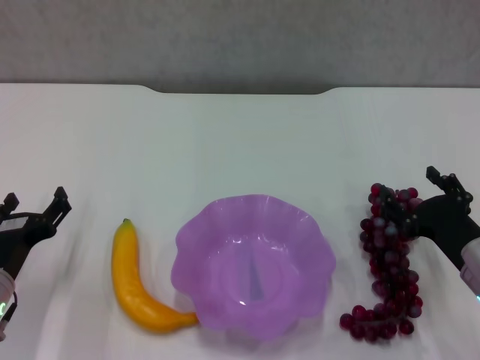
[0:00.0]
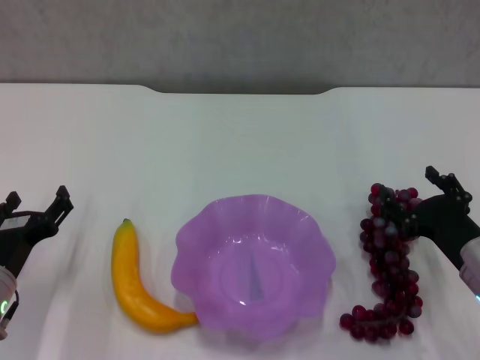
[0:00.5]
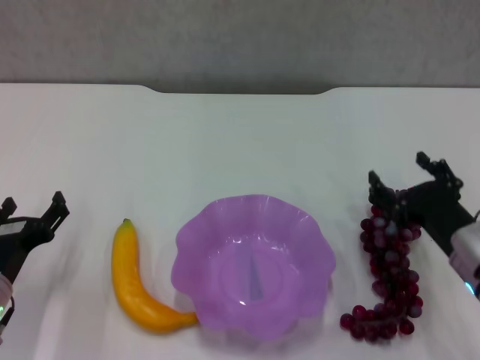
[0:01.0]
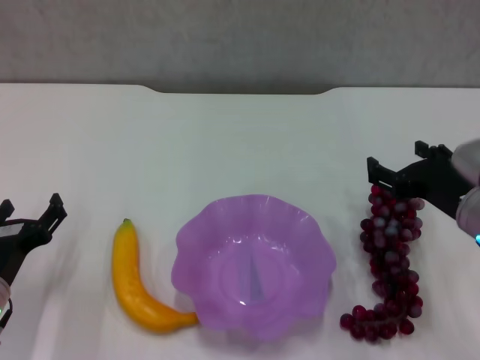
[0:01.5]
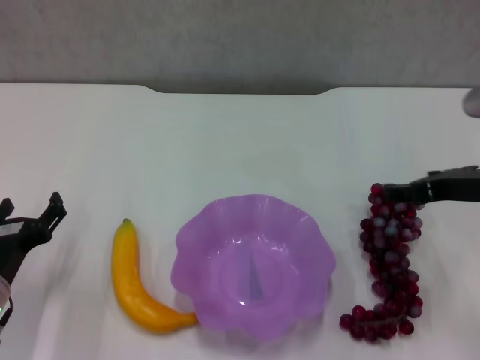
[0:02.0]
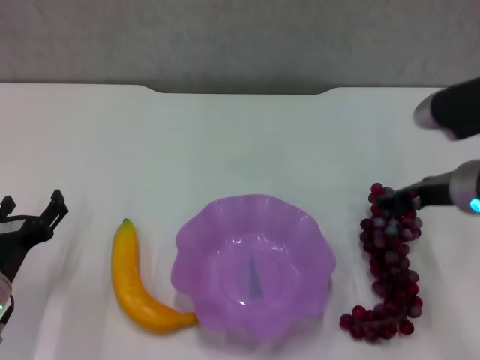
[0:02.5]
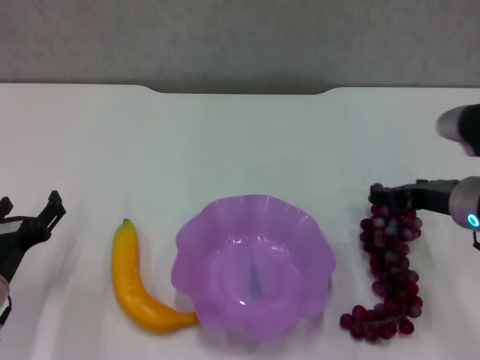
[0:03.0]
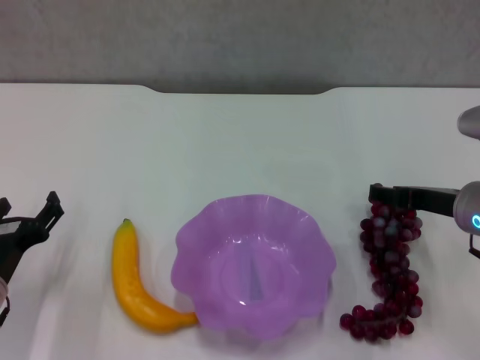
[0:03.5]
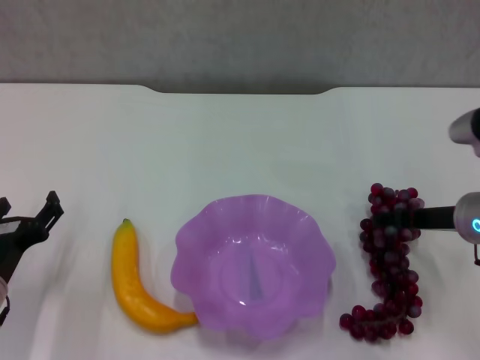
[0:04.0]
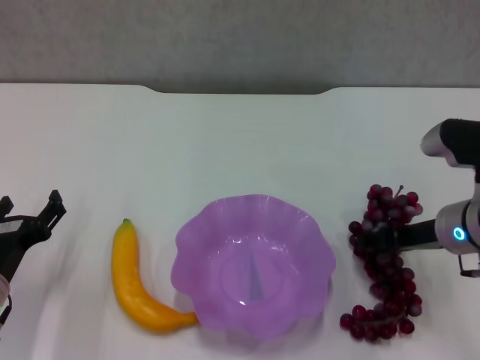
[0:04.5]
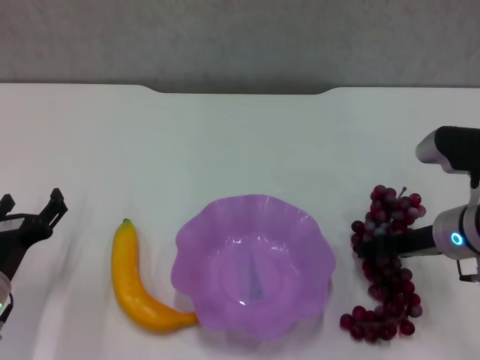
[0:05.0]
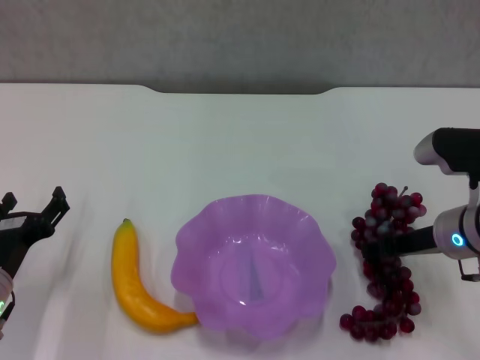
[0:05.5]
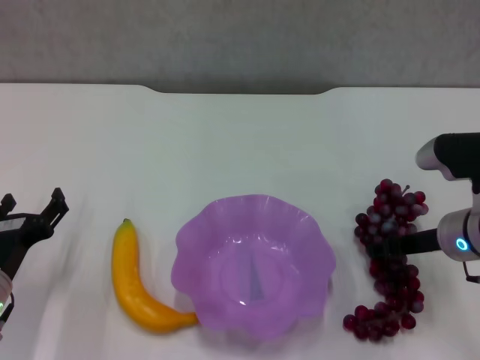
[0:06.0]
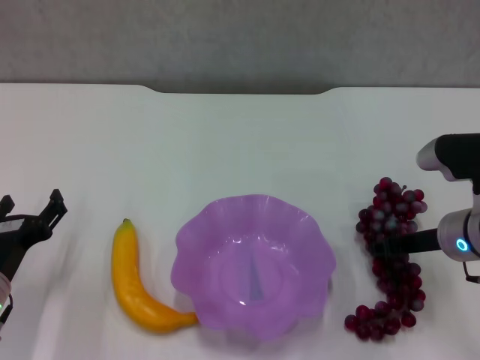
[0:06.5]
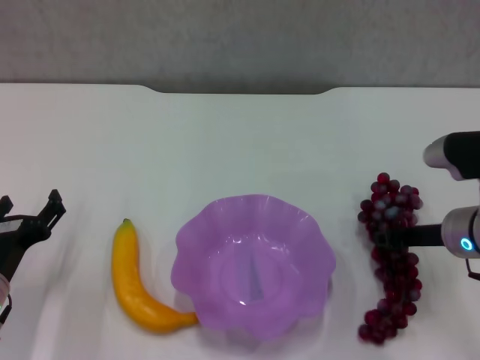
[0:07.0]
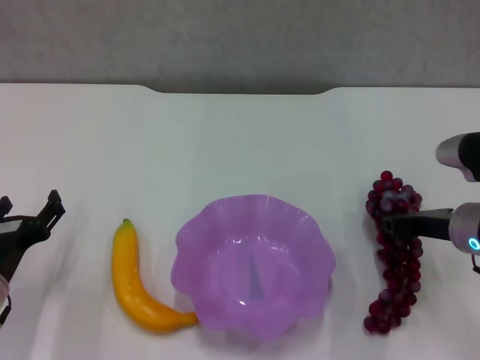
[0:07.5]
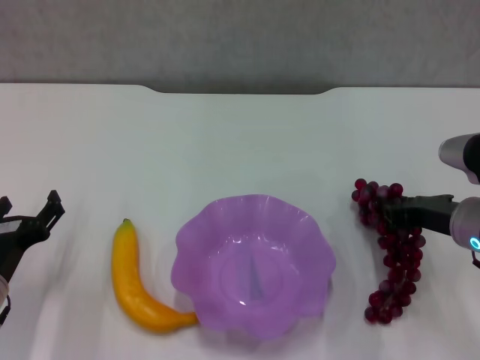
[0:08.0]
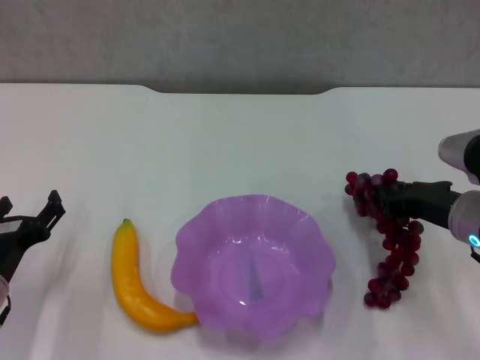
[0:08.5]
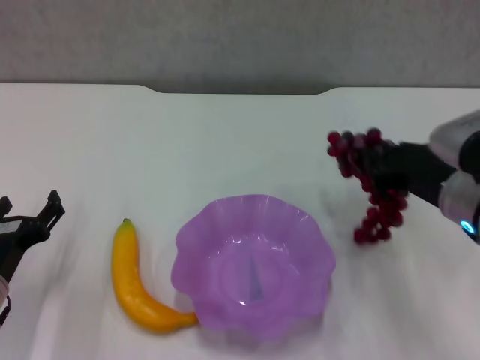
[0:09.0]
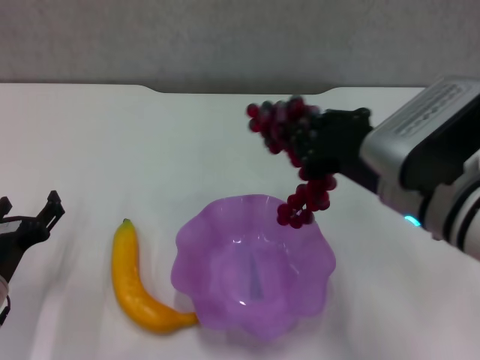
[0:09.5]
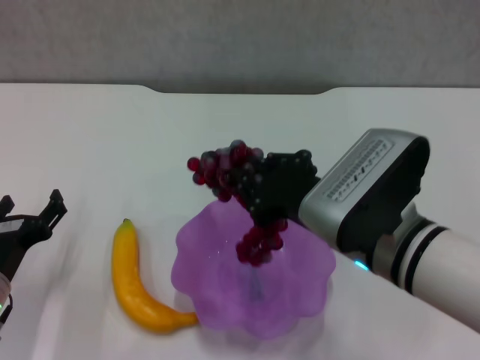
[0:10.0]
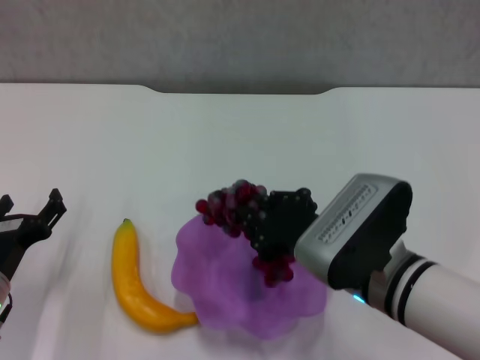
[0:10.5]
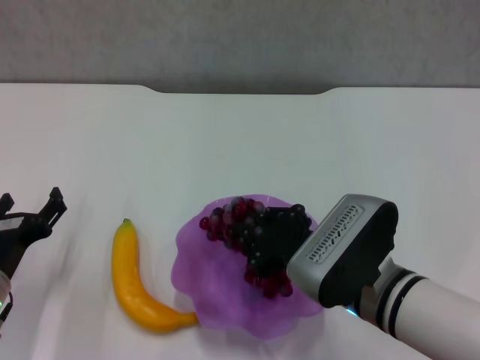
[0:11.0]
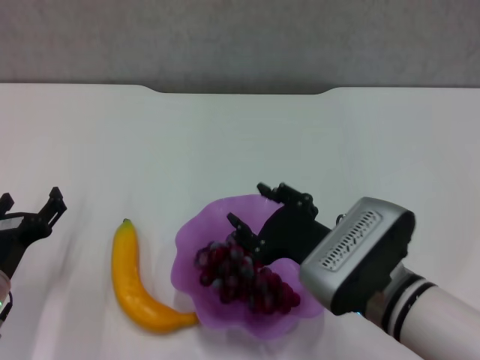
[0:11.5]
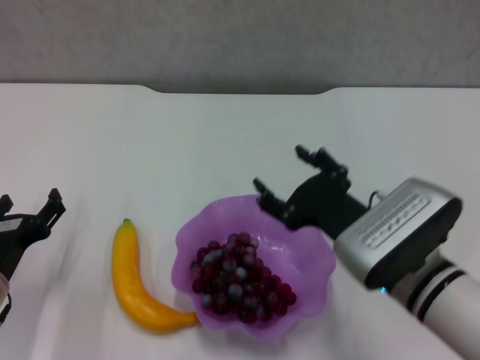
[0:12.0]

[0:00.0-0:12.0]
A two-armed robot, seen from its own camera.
Step, 0.0 to 5.5 s: Grasp the grape with right gripper.
0.0 to 2.0 s: The right gripper travels upward by about 15 cm.
2.0 to 4.0 s: The right gripper is displaced downward by about 5 cm.
4.0 to 6.0 s: The grippers make only small movements.
6.0 to 8.0 s: The right gripper closes.
8.0 to 10.0 s: The right gripper shifts about 15 cm to the left and backward.
10.0 to 12.0 s: The right gripper shifts about 5 cm downward, and opens.

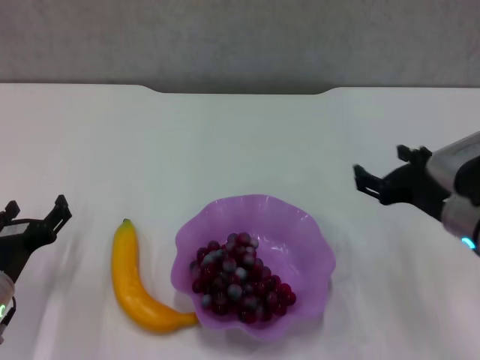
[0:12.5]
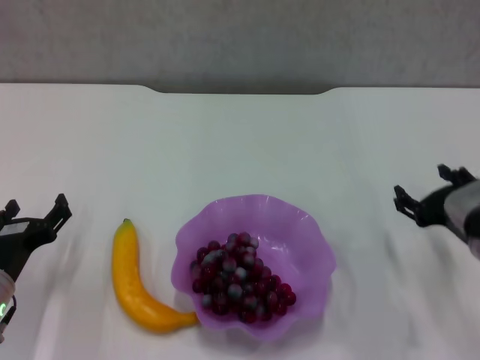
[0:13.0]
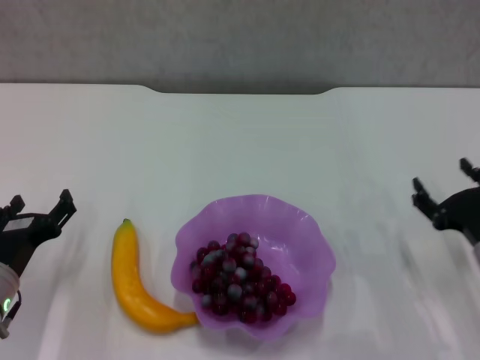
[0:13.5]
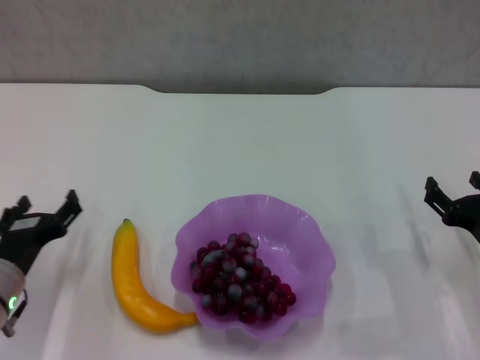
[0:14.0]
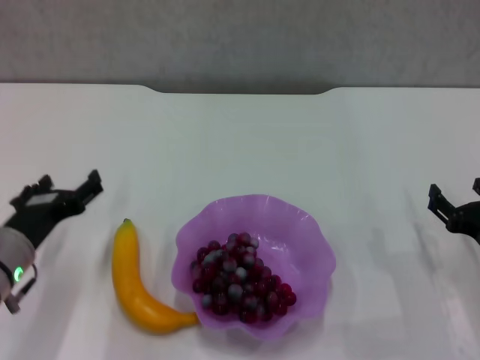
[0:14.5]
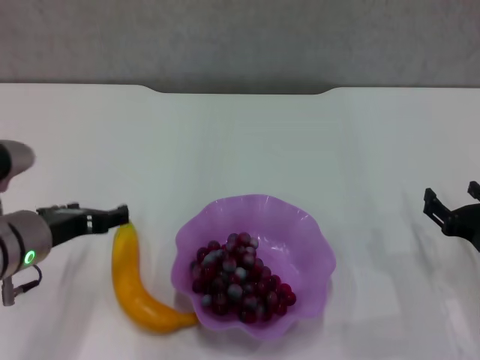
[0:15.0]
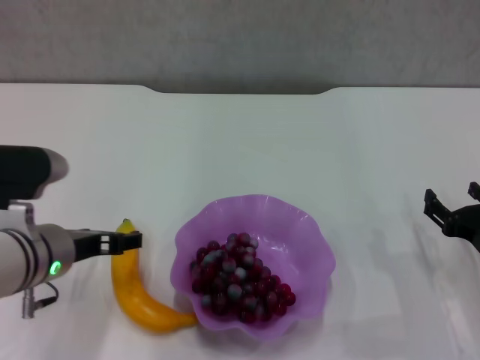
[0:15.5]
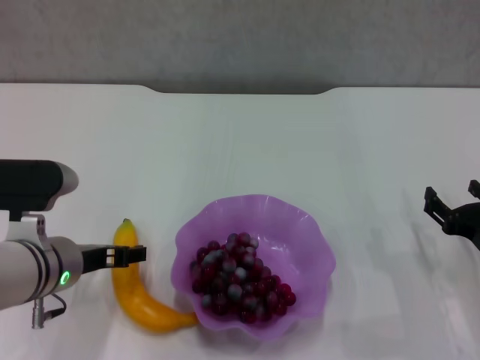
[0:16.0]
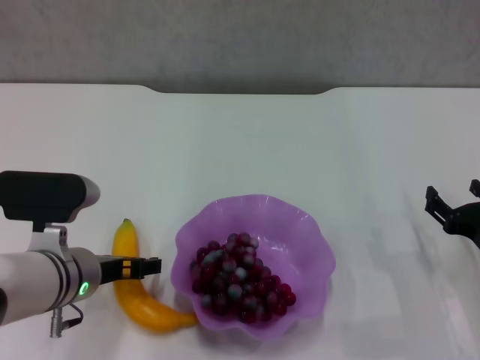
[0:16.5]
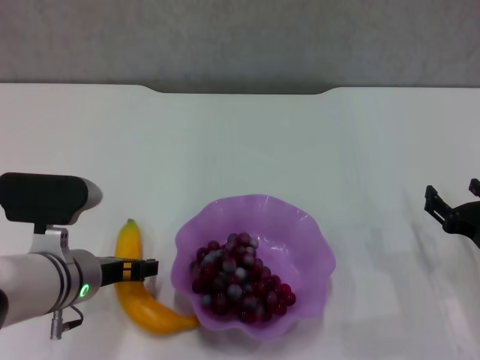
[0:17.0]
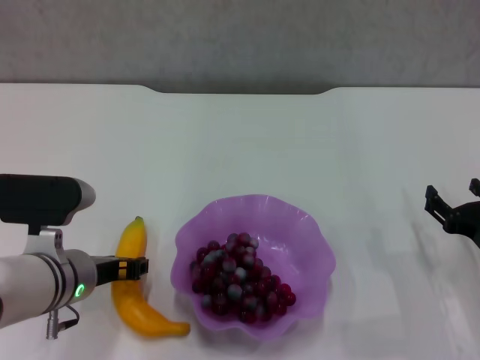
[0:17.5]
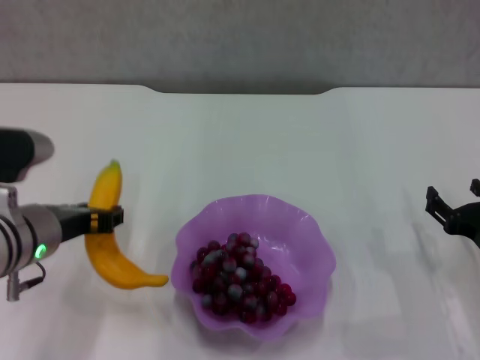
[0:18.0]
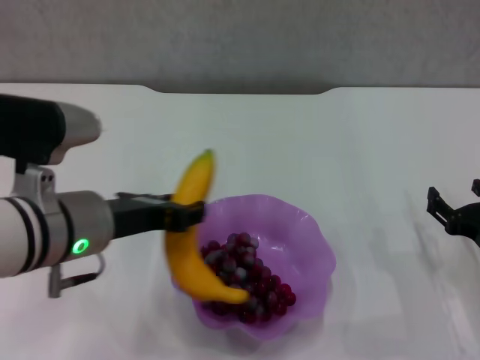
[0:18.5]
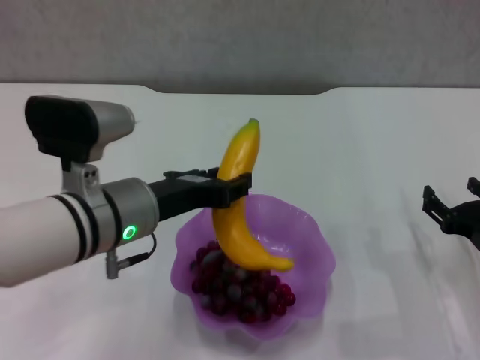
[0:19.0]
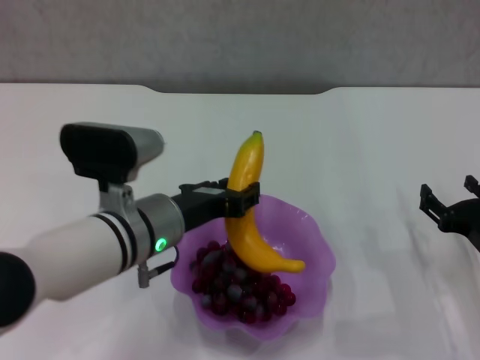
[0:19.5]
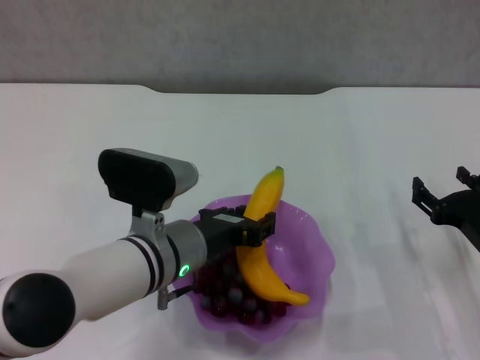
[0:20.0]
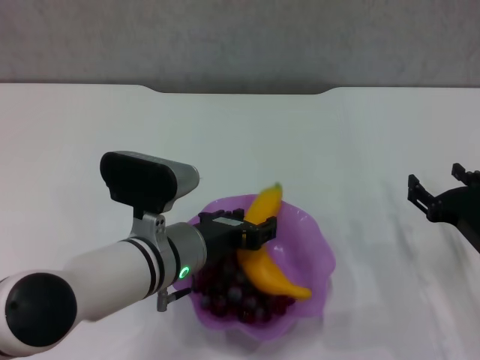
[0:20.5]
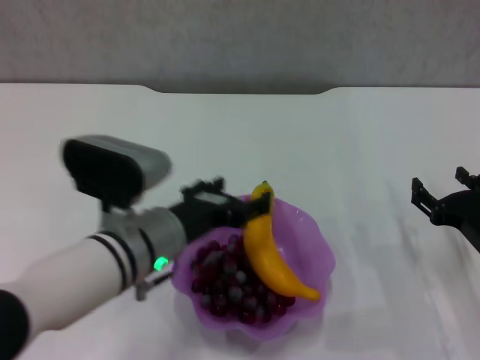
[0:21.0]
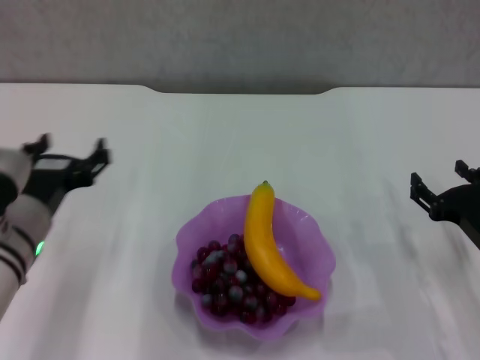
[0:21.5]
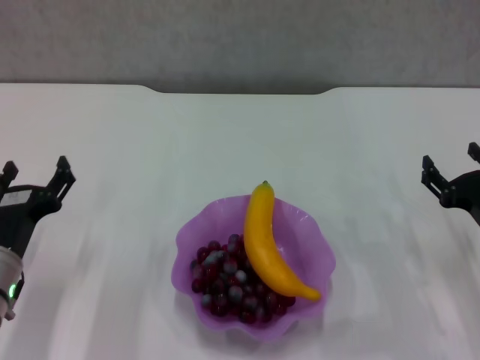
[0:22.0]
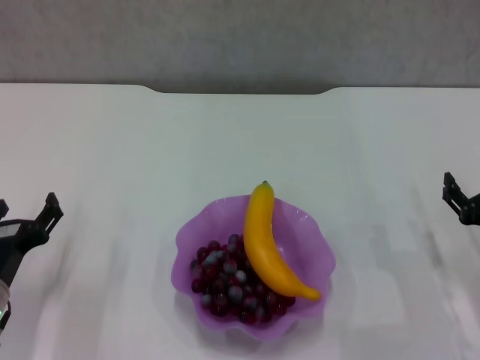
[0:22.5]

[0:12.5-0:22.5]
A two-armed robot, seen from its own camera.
Step, 12.5 to 17.0 s: Grasp the banana with left gripper.
Step, 17.5 to 20.5 s: Place the banana in the purple plate with left gripper.
12.5 to 14.5 s: The left gripper shifts approximately 5 cm upward. The right gripper travels downward and to the right by approximately 10 cm.
14.5 to 16.5 s: The left gripper shifts some 5 cm to the right.
16.5 to 18.5 s: The left gripper shifts about 10 cm upward, and closes.
18.5 to 20.5 s: The left gripper heads downward and to the right, covering roughly 10 cm.
20.5 to 22.5 s: The left gripper travels to the left by about 20 cm, and opens up.

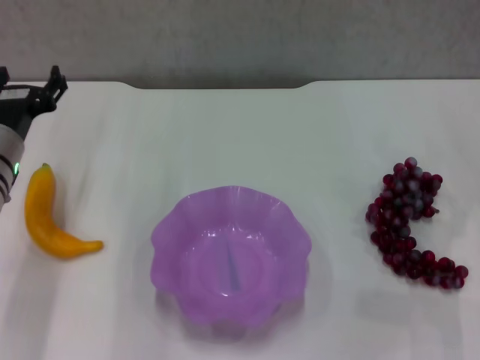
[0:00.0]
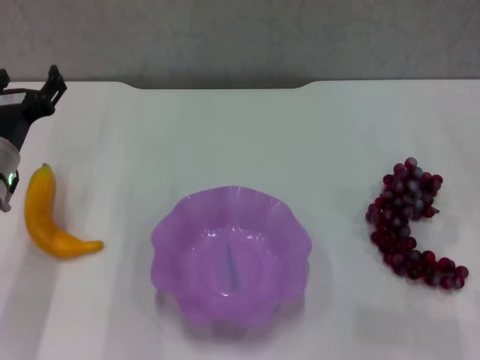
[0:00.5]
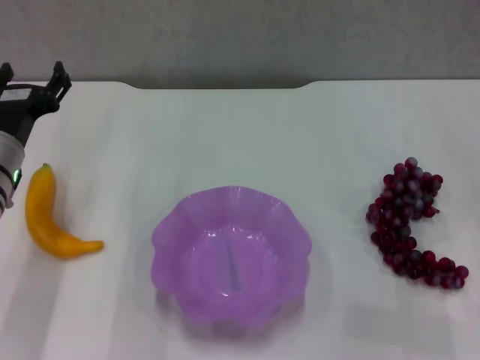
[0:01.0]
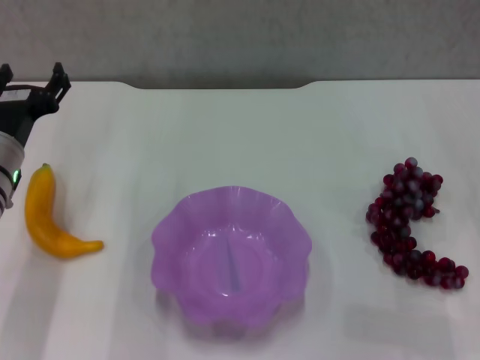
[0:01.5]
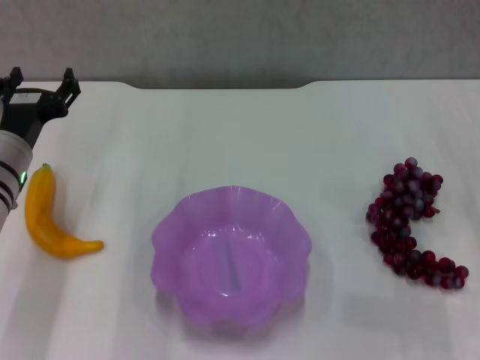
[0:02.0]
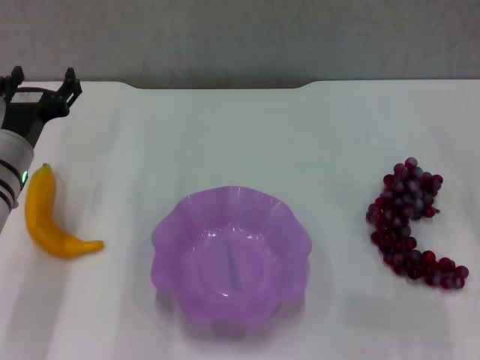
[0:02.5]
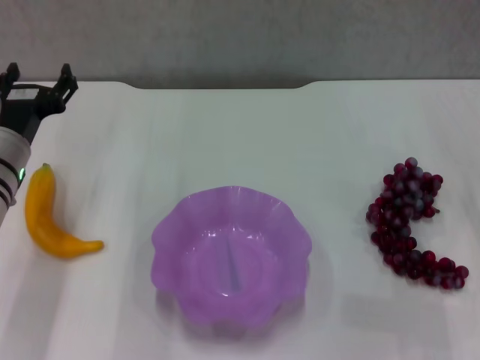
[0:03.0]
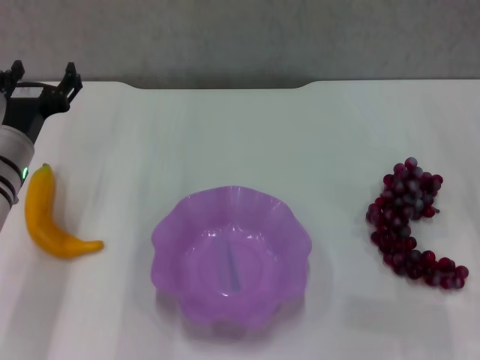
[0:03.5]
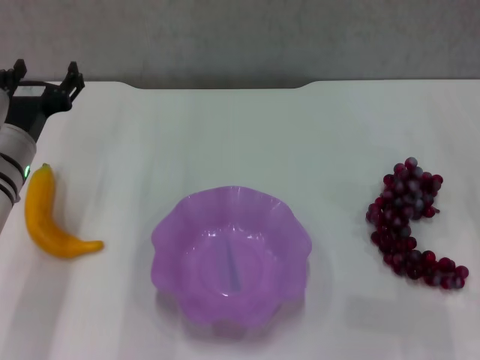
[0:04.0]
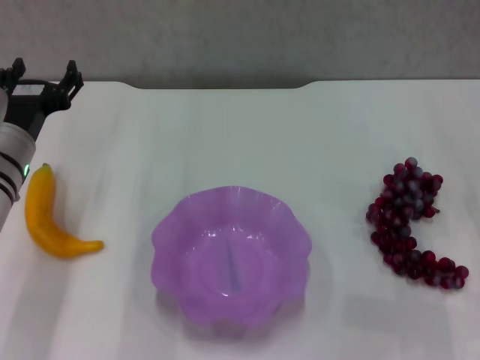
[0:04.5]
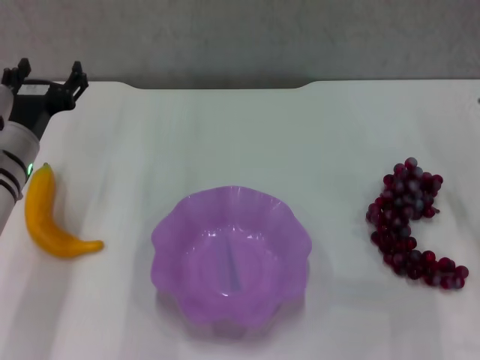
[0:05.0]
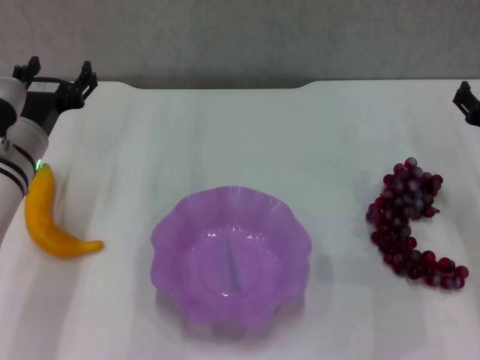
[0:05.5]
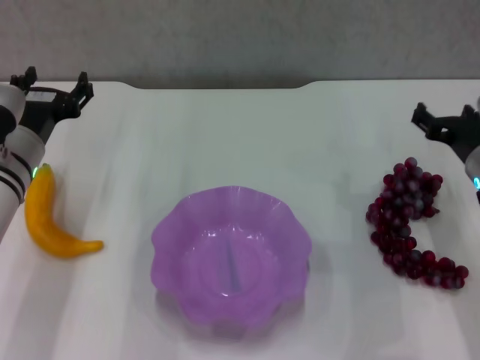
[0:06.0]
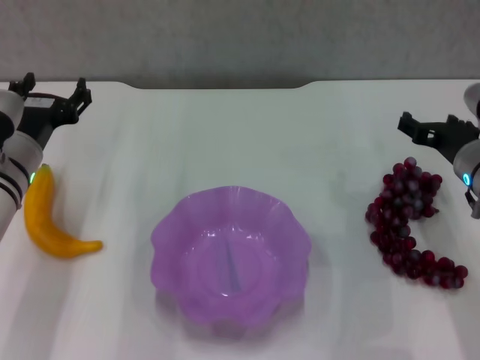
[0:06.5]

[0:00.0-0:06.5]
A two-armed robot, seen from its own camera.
0.0 to 2.0 s: The grippers move only a little.
2.0 to 4.5 s: Neither gripper changes place.
4.5 to 6.5 s: The right gripper goes about 10 cm to the left and forward.
